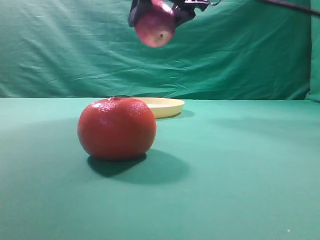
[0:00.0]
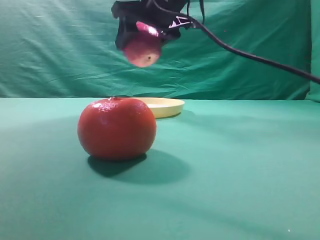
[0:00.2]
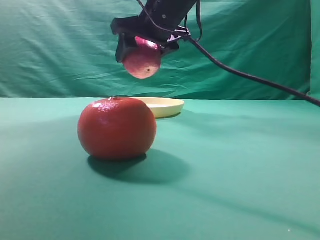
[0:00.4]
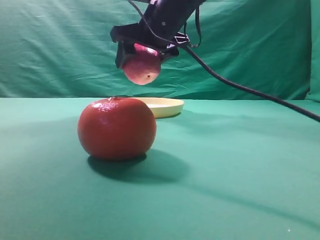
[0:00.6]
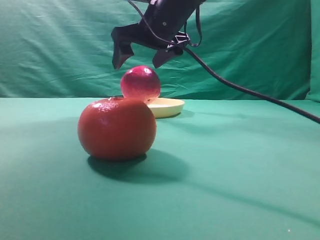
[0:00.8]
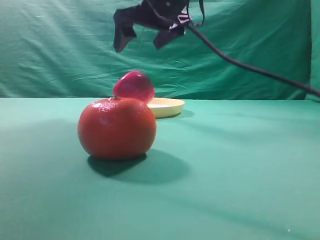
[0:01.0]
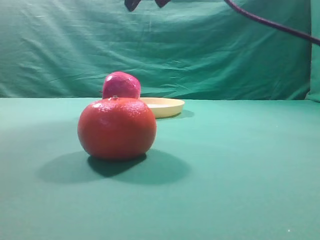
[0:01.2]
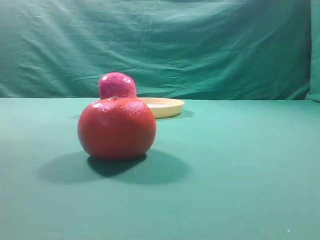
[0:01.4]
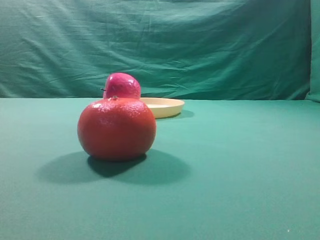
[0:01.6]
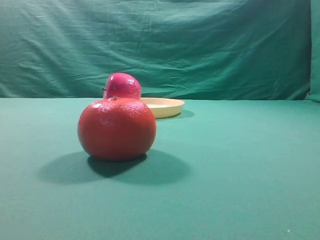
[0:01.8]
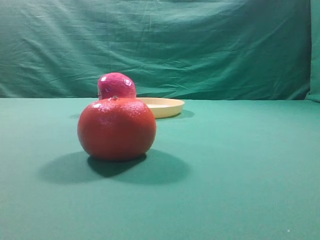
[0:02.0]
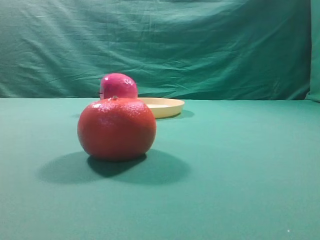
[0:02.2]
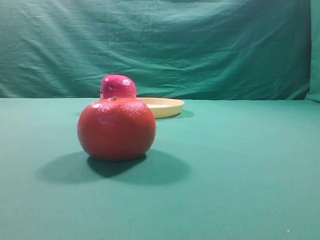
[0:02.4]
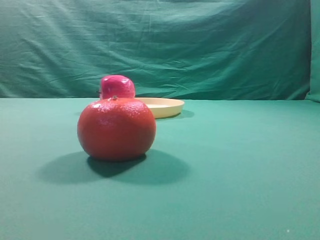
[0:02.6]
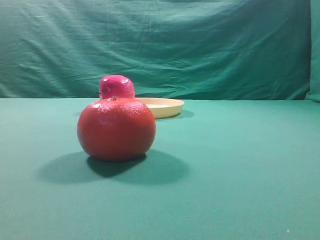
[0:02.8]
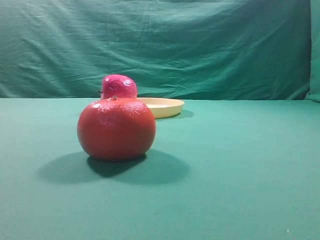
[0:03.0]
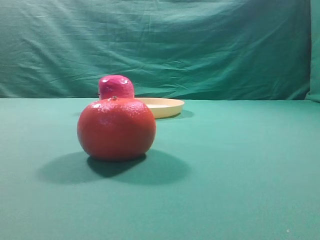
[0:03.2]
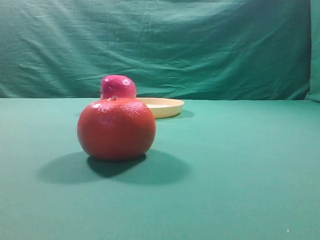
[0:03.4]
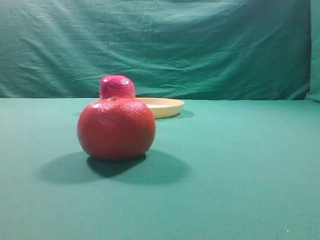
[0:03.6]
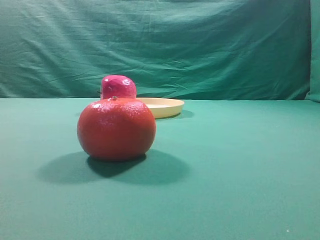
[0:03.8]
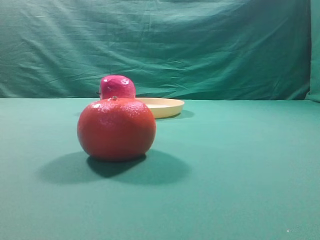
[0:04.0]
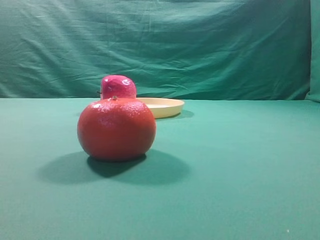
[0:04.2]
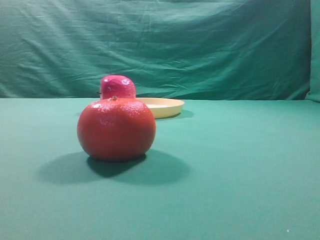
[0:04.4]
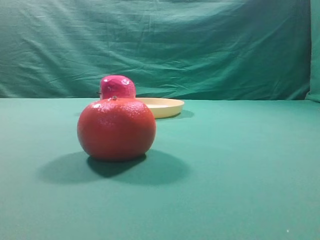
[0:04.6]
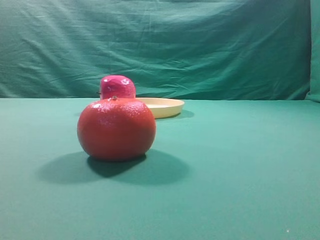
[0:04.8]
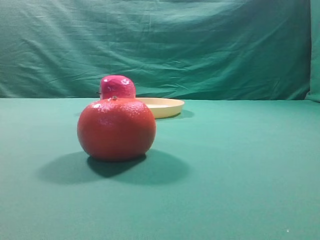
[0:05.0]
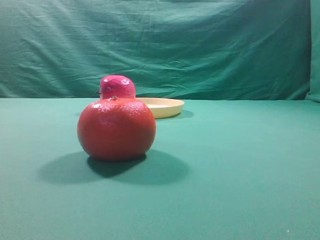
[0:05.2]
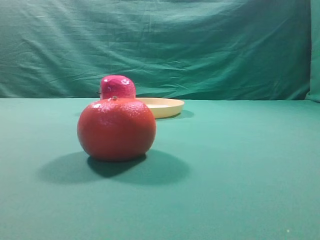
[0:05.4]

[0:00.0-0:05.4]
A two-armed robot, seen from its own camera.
Task of the whole recording: grasp the apple and place it into the yellow plate.
Step, 0:00.0 to 0:01.0: Place the picked object into the yellow plate.
